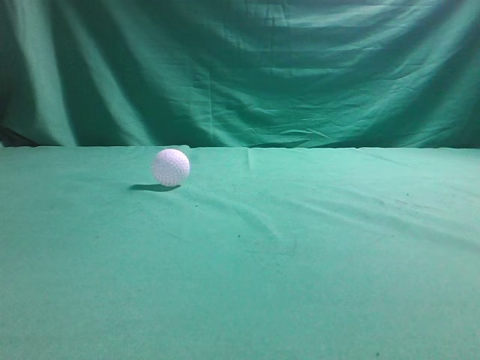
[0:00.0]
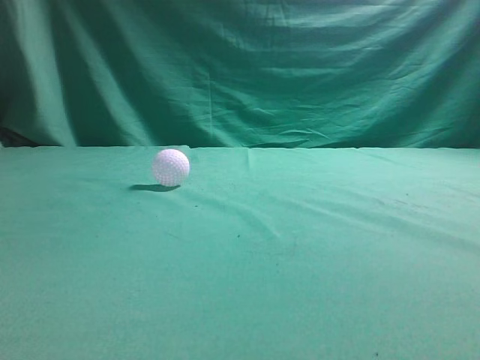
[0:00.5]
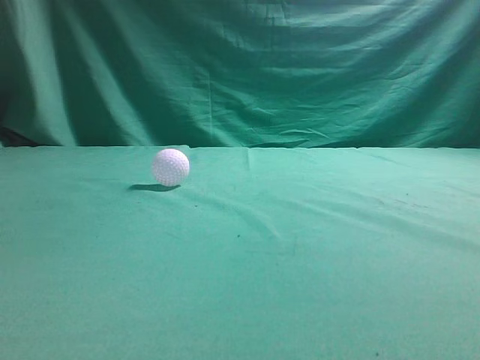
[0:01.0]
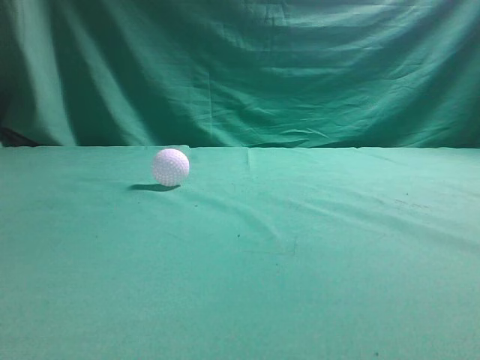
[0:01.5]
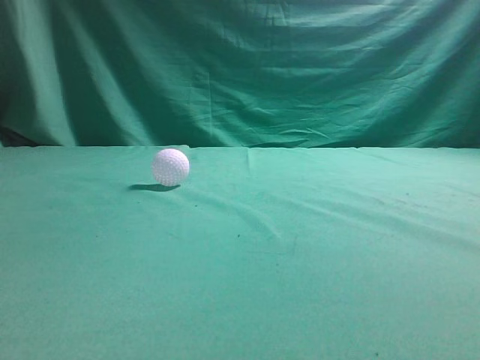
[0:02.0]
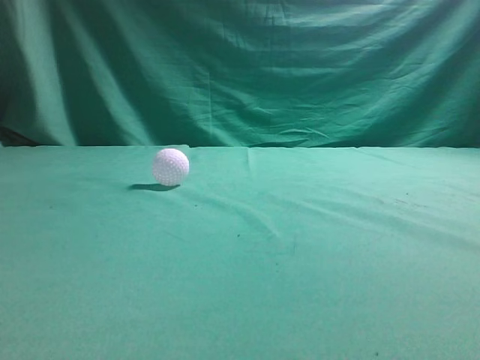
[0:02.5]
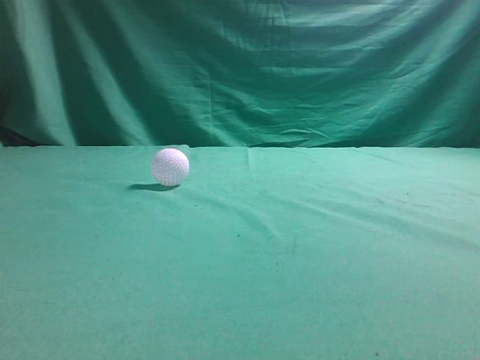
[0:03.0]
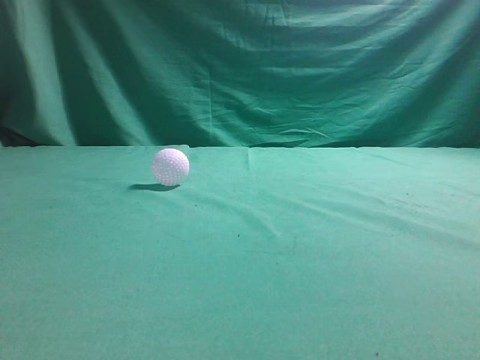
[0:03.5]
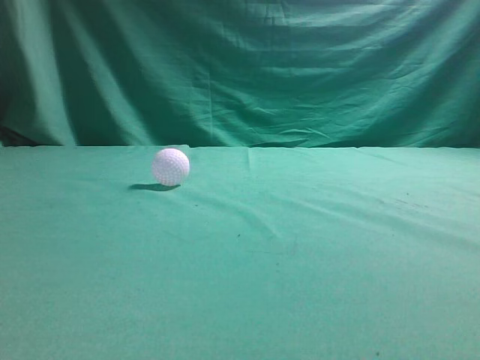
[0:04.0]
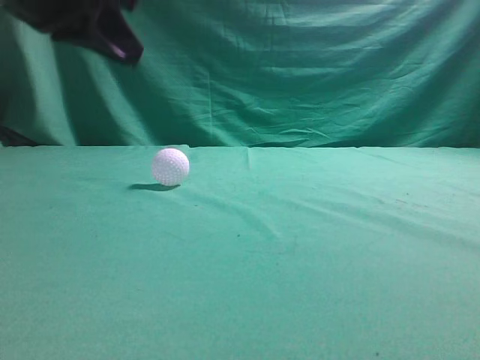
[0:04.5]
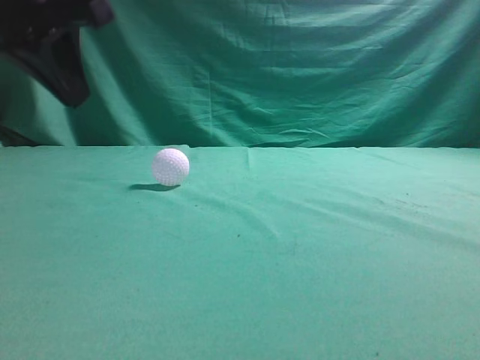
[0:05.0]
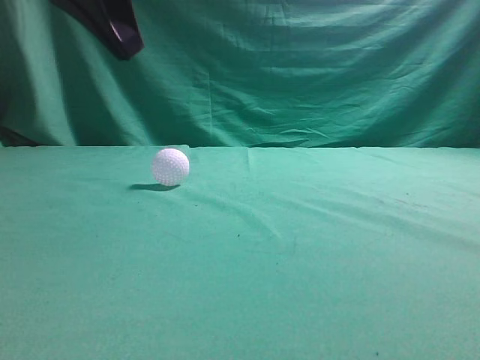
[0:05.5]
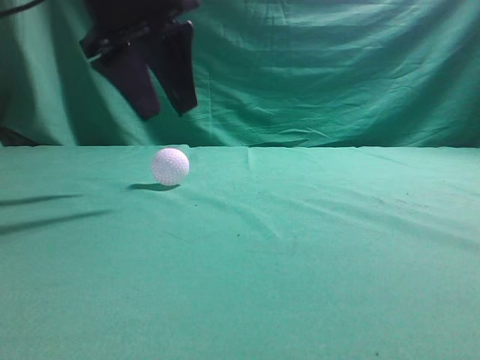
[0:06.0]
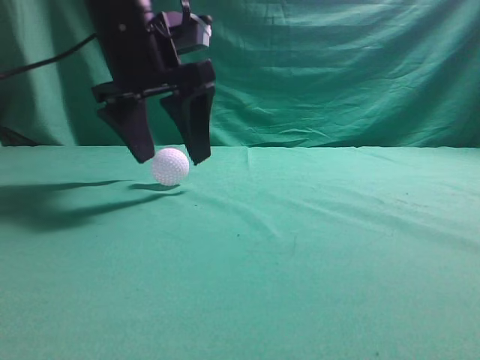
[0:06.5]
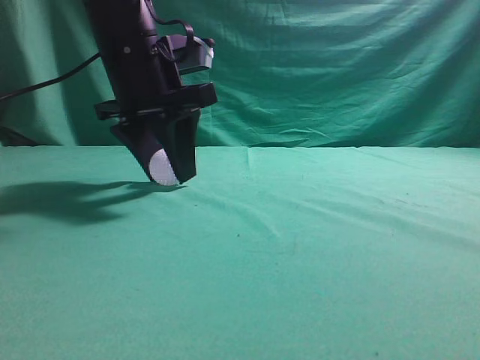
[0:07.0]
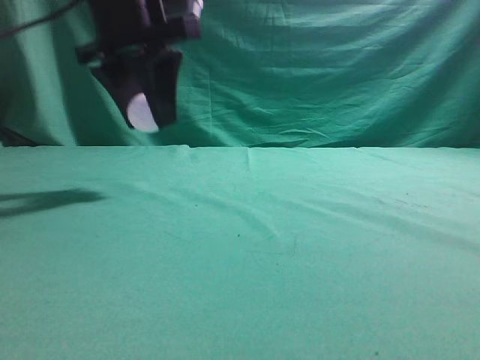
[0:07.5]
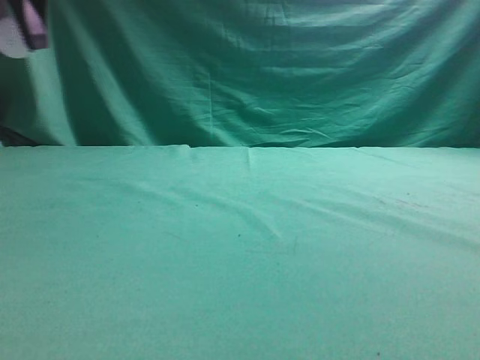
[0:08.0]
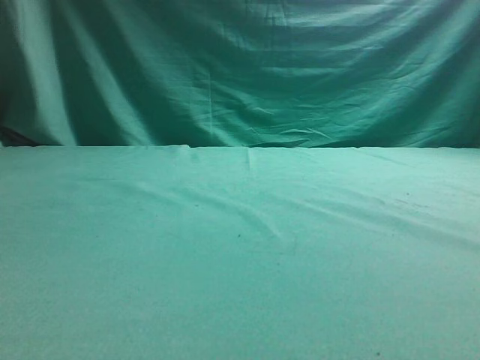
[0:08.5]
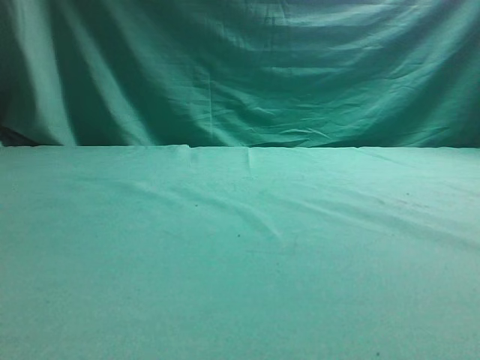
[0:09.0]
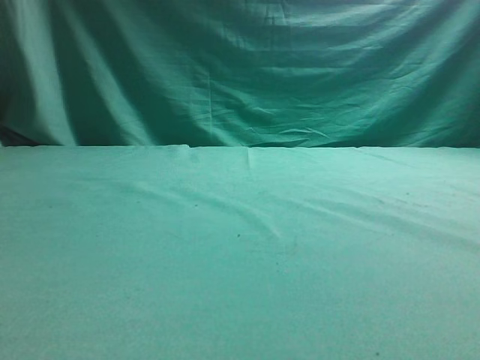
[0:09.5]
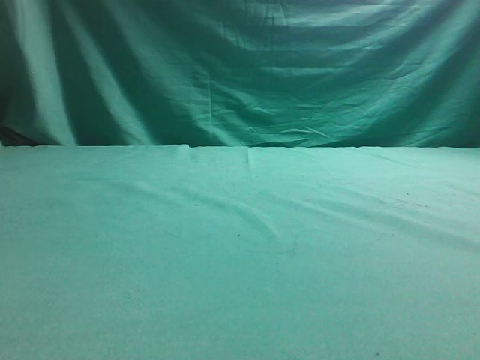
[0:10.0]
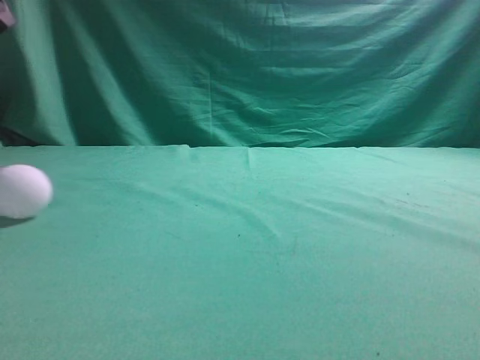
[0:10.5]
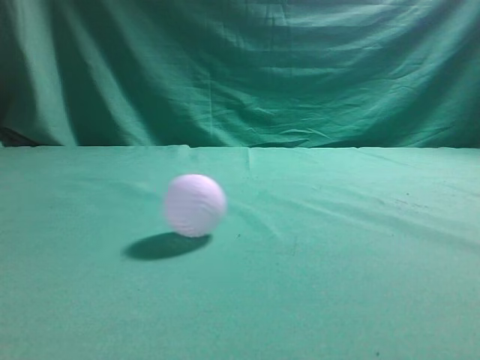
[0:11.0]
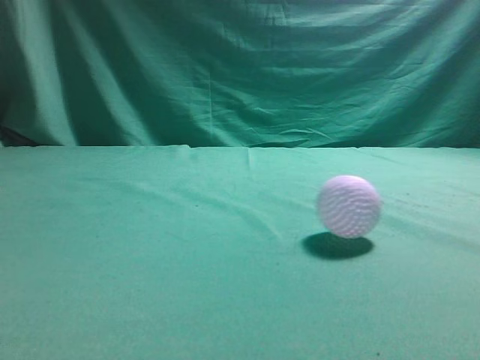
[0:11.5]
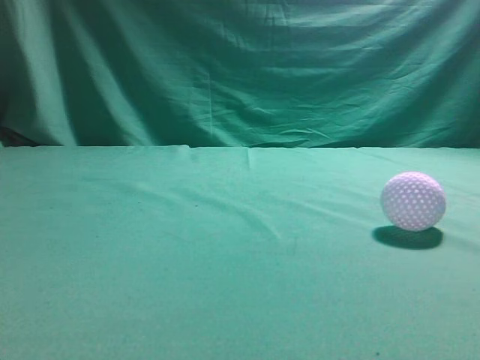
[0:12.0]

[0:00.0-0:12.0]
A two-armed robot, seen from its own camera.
Task of the whole recording: pick up the ball and place it on the plate, then pick up the ball from the plate and put it in the center of the table.
Step, 0:00.0 to 0:07.0: Grab the spherical object with your left arm.
Step, 0:07.5 to 0:09.5: Place the sphere on the white object.
0:04.0 to 0:06.0: The left gripper travels to the right and forward by about 10 cm, and opens its fingers.
0:06.0 to 0:08.0: The left gripper goes roughly 15 cm to the left and upward.
0:08.0 to 0:10.0: The left gripper moves to the left and downward, roughly 15 cm, and opens up.
0:10.0 to 0:12.0: The right gripper shifts some 10 cm upward.

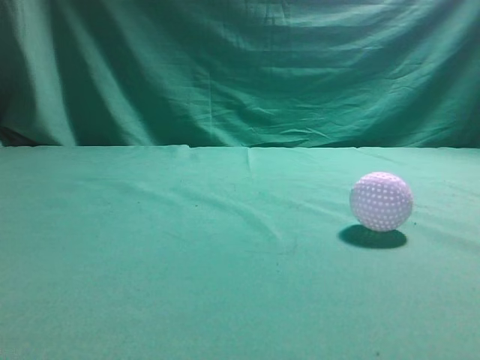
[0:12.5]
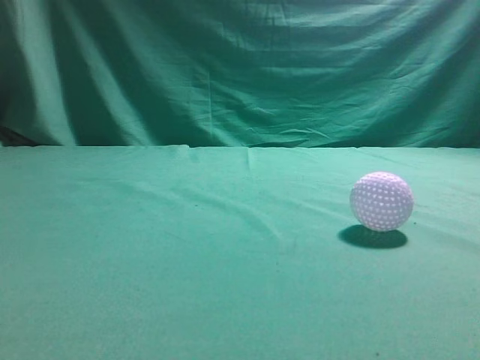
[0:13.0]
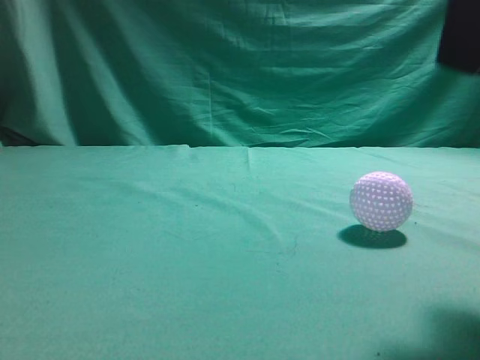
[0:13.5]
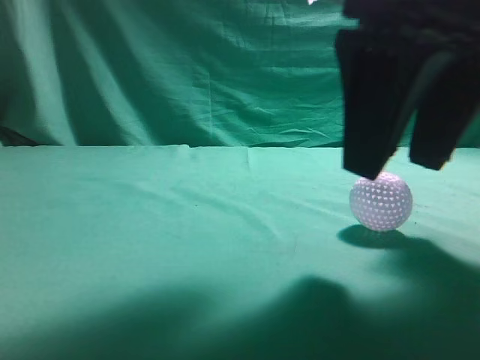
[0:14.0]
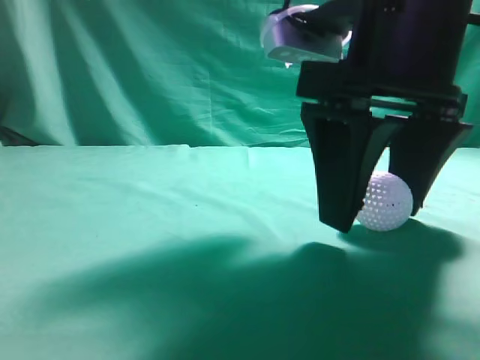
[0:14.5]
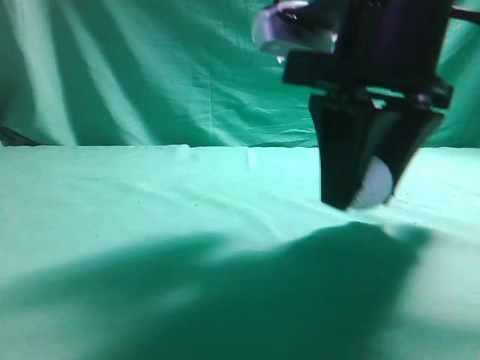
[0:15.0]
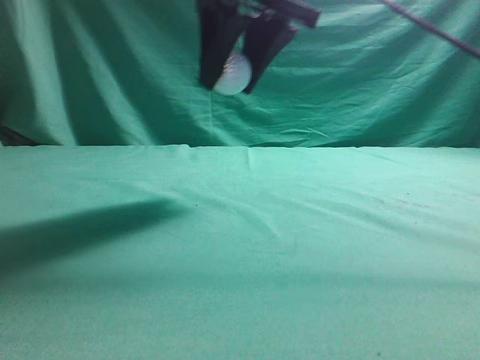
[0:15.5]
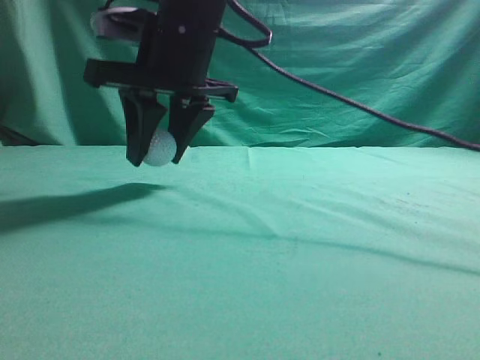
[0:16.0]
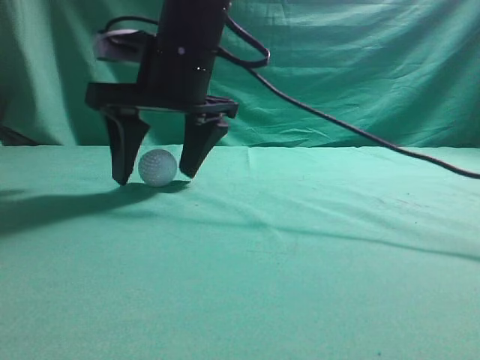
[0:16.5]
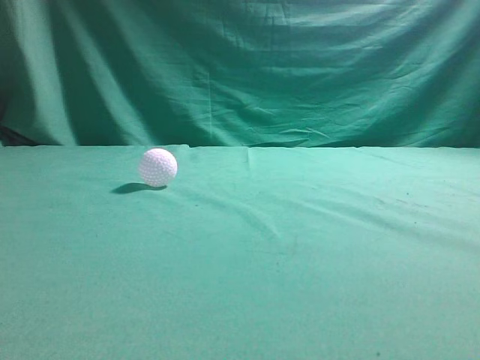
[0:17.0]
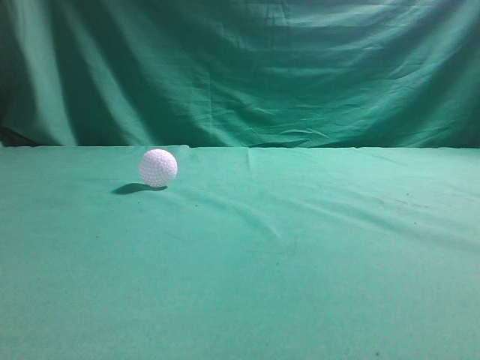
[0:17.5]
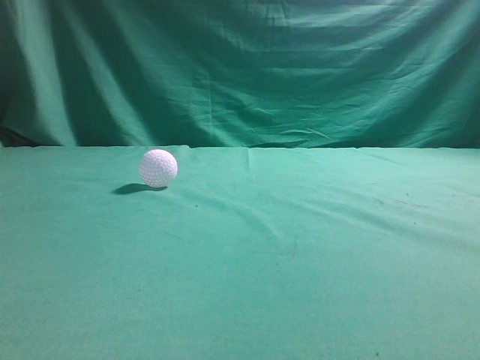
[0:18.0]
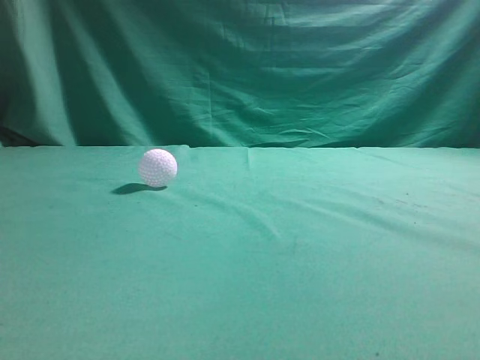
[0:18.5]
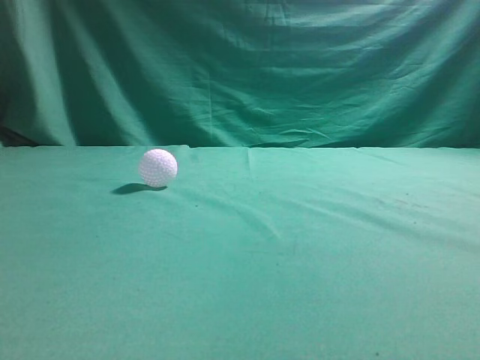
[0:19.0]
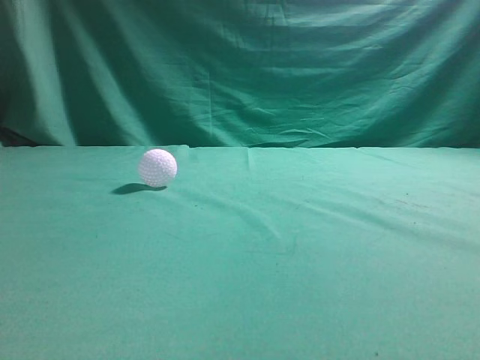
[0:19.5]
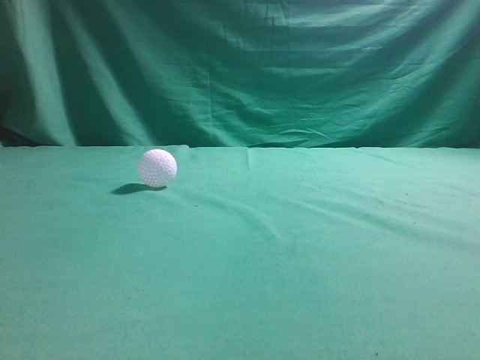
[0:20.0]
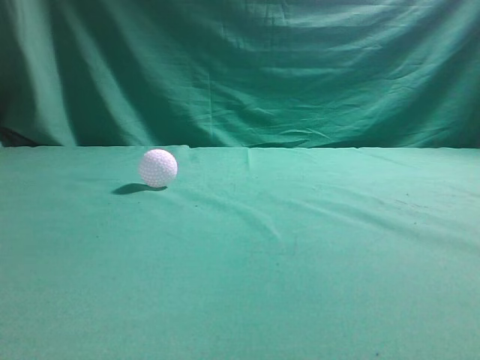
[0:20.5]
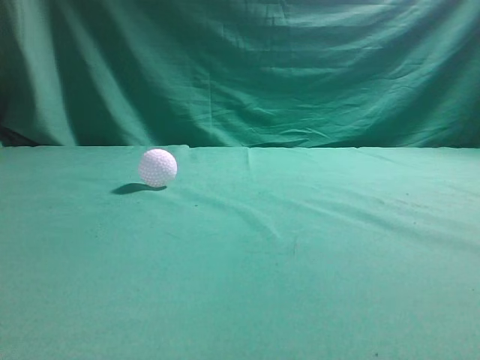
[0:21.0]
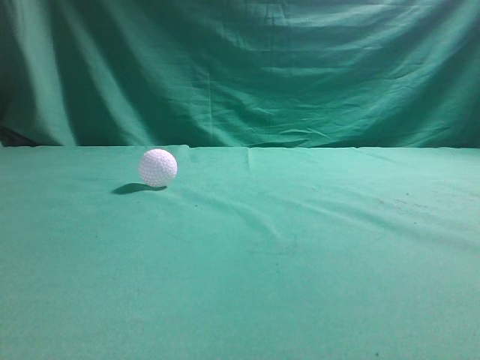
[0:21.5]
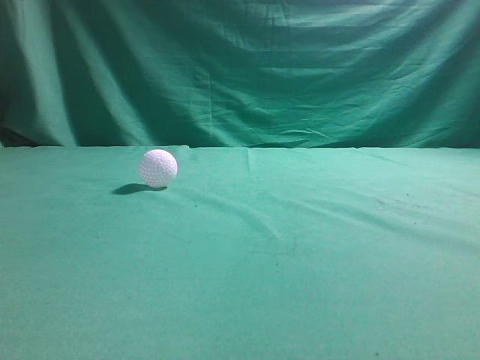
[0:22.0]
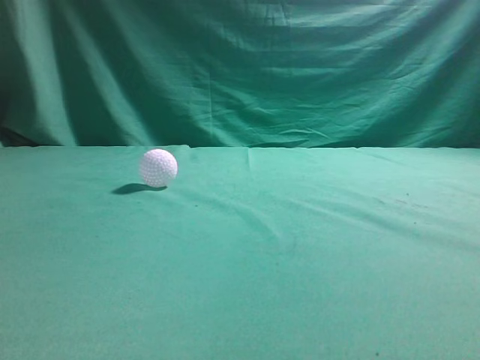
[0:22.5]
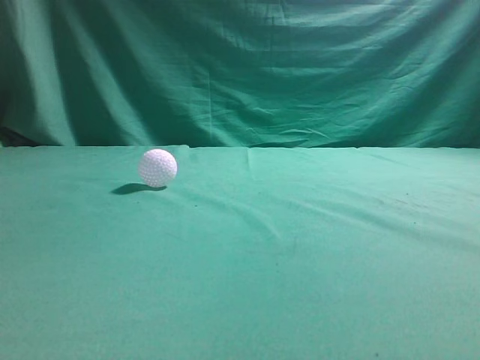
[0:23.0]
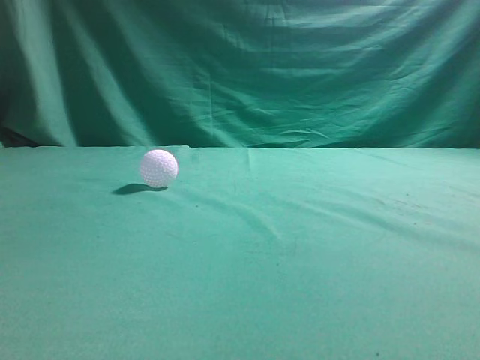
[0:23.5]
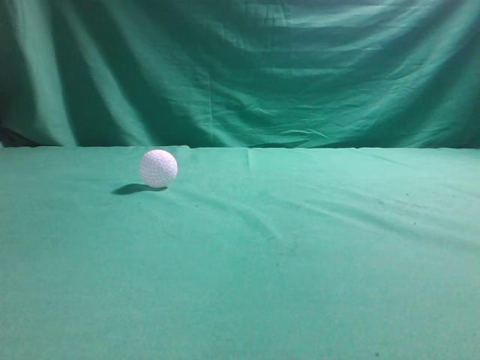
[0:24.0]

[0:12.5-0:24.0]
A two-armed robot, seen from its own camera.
Task of the whole recording: pick up the ball and place it on the plate, then pick up the ball from the plate and put it in the center of the table.
Step, 0:12.5 to 0:14.5: Grab the rolling spherical object.
Step, 0:15.5 to 0:16.5: Put the picked-up object on the table.
0:12.5 to 0:14.5: The right gripper goes roughly 30 cm to the left, forward and downward, and opens up.
0:14.5 to 0:16.5: The right gripper goes roughly 20 cm to the left and forward, and closes, then opens again.
0:16.5 to 0:18.5: The right gripper is displaced backward and to the right by roughly 40 cm, and closes its fingers.
